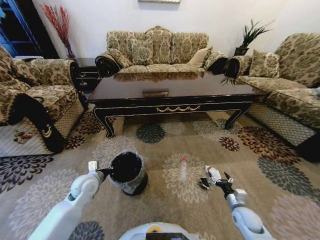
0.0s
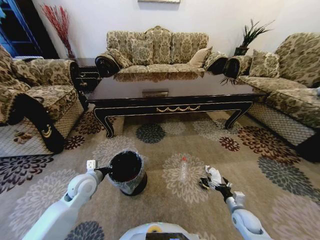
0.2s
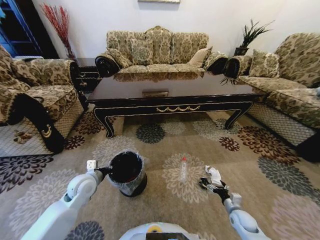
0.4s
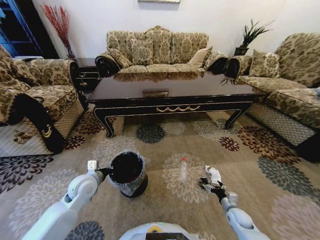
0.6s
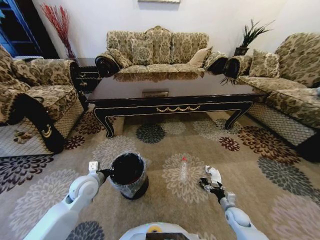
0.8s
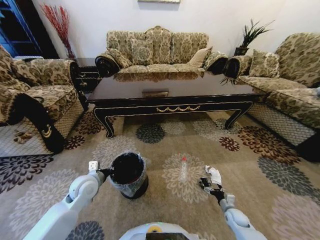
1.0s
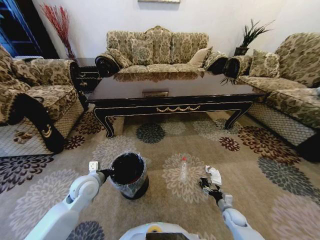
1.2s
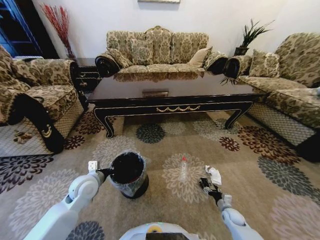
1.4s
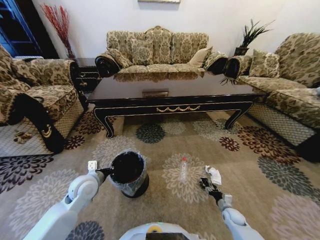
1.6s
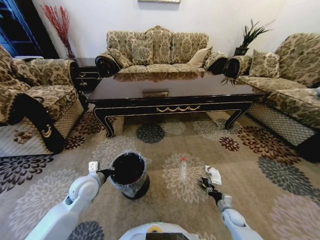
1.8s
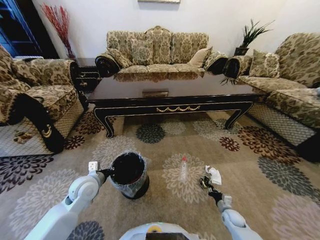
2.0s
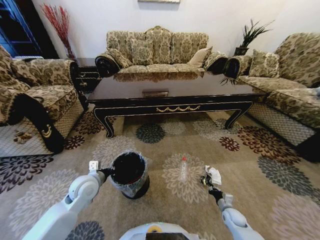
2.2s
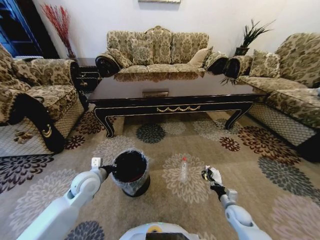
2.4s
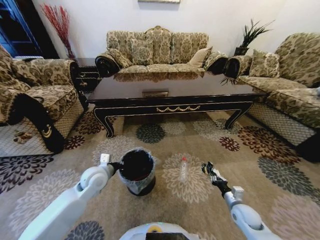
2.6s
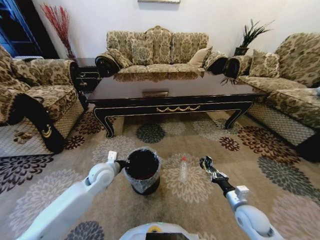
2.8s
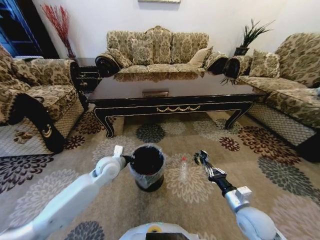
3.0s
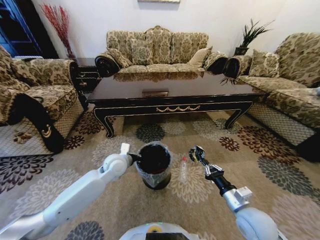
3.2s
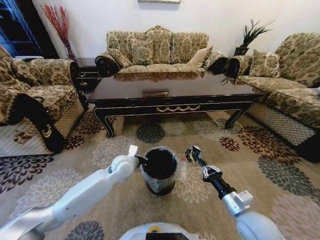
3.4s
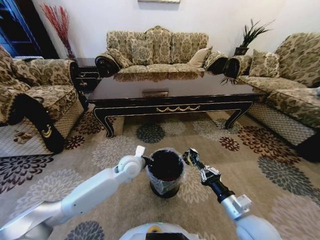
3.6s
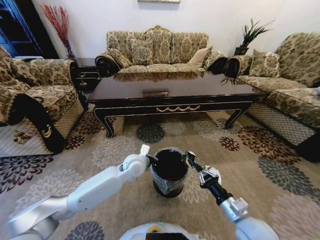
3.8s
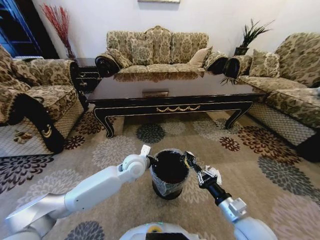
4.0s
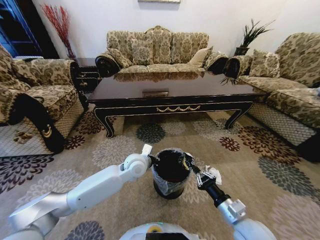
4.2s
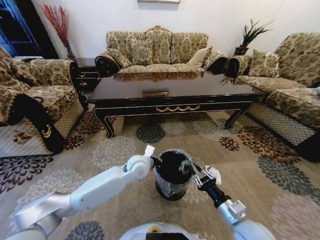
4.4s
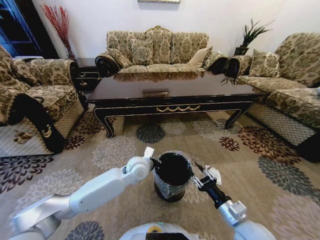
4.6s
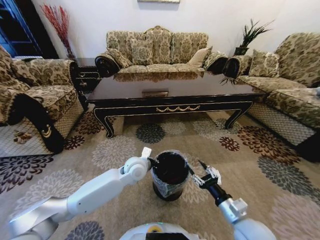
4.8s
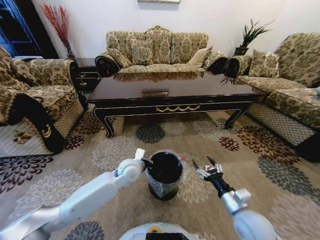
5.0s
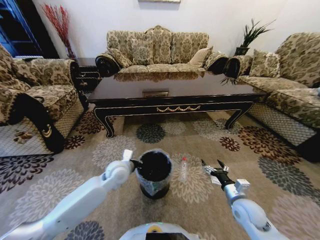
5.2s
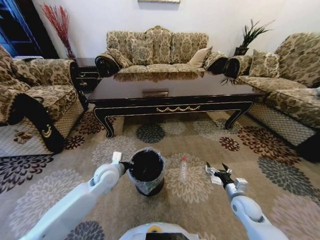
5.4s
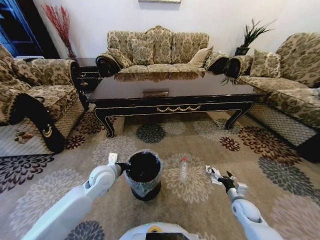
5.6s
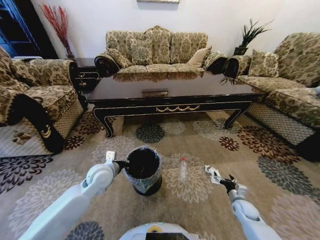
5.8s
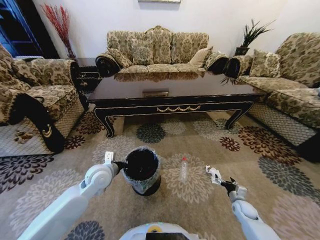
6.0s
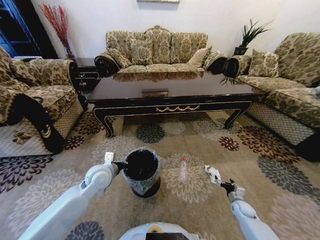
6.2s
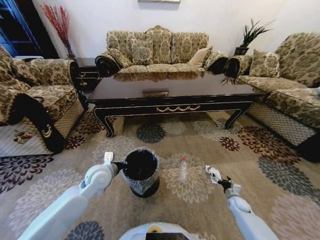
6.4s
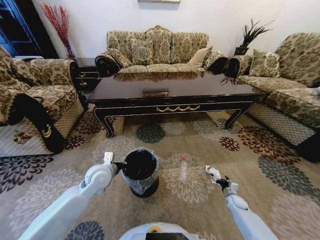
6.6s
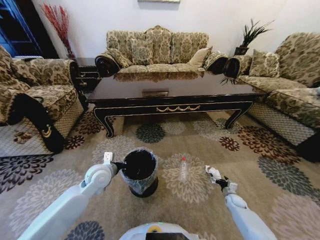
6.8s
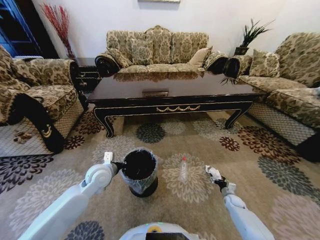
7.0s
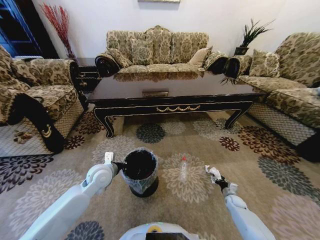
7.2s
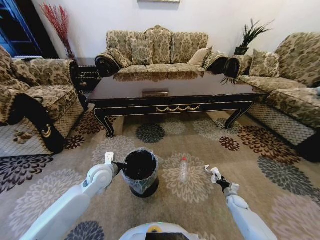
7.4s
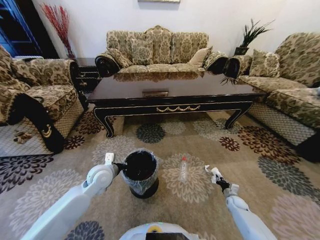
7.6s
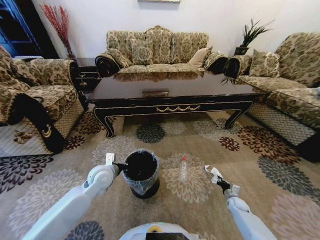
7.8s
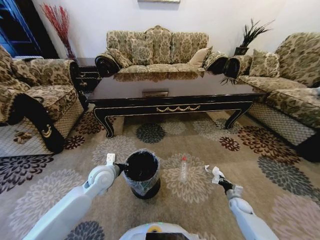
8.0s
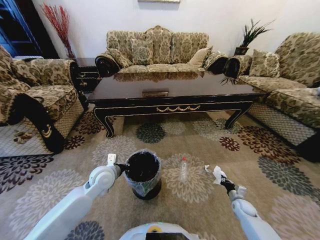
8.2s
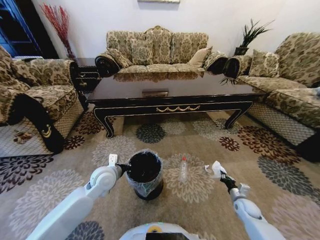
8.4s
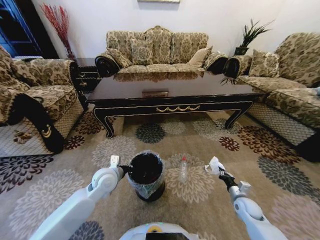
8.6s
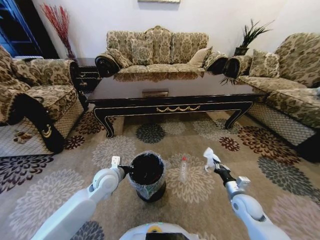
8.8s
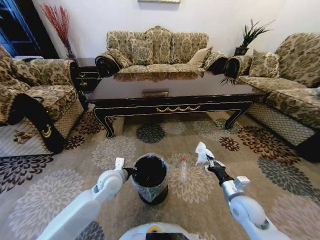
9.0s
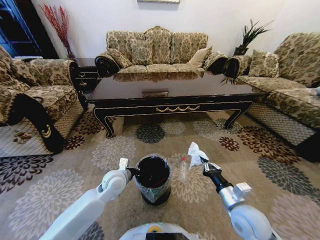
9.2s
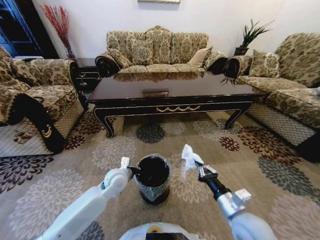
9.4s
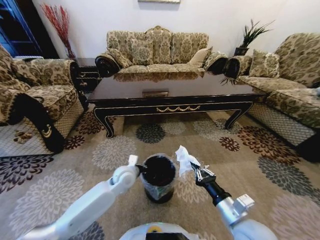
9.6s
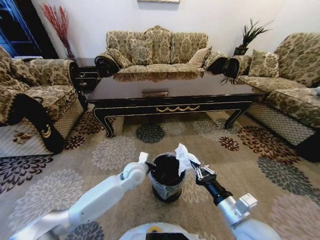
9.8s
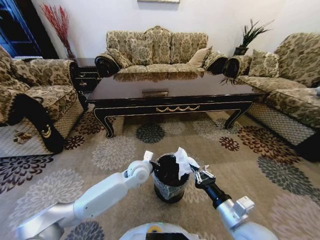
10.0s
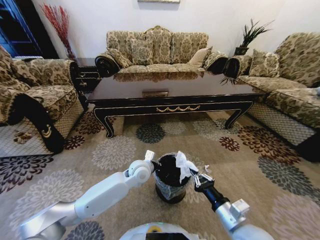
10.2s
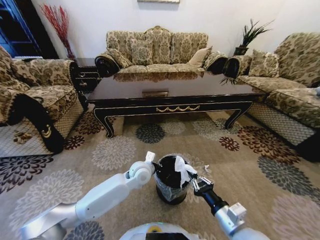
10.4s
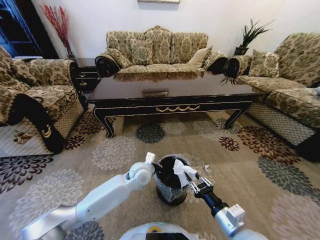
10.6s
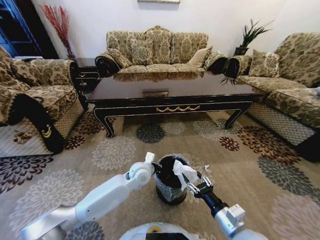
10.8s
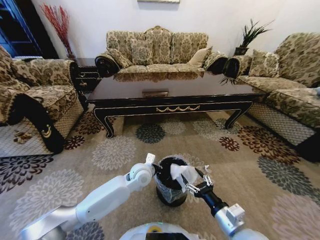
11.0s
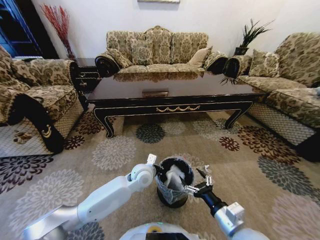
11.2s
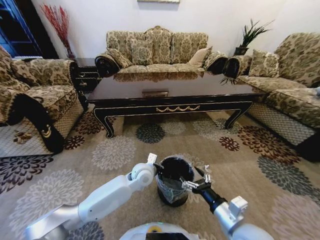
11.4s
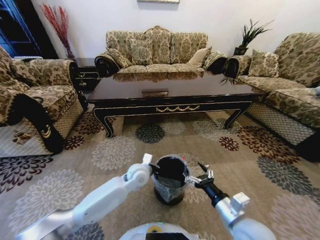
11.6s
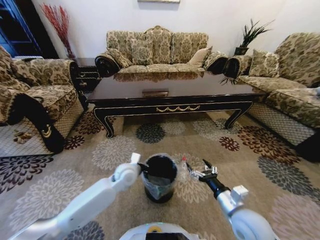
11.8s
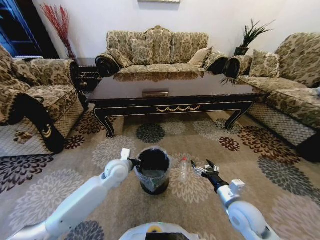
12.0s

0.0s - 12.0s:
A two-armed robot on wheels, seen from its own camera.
Task of the whole recording: Move to the front of the table and pick up the trash from the floor, then place it into the trash bin.
0.0s - 1.6s: The right gripper is displaced downward by roughly 10 cm, and closes its fingers.
1.6s - 3.0s: The right gripper moves upward, some 25 cm, and closes its fingers. The left gripper is displaced to the right and forward by about 10 cm.
3.0s - 4.4s: The left gripper goes about 15 cm to the right; the right gripper heads to the left, covering some 5 cm.
4.4s - 6.0s: The right gripper is displaced downward, to the right and forward by some 30 cm, and opens up. Meanwhile the left gripper shifts approximately 15 cm to the left.
6.0s - 7.6s: The right gripper heads downward, covering some 5 cm, and closes its fingers.
7.6s - 9.0s: The right gripper moves upward and to the left, about 30 cm; the left gripper moves roughly 5 cm.
9.0s - 10.4s: The left gripper is displaced to the right by approximately 10 cm. Meanwhile the right gripper heads backward and to the left, covering roughly 10 cm.
10.4s - 12.0s: The right gripper travels forward and to the right by some 10 cm, and opens; the left gripper travels to the left by roughly 10 cm.

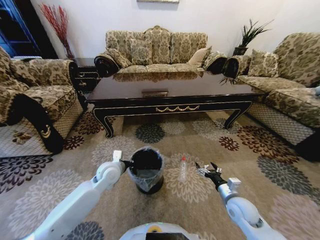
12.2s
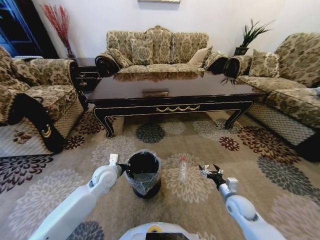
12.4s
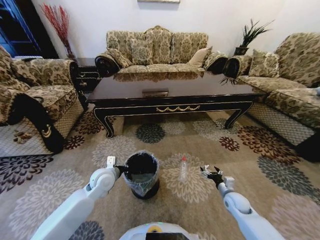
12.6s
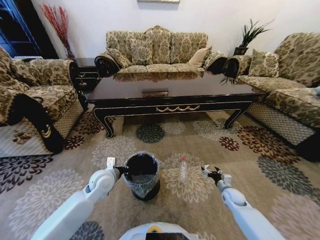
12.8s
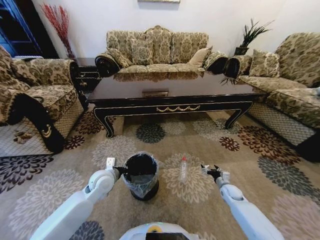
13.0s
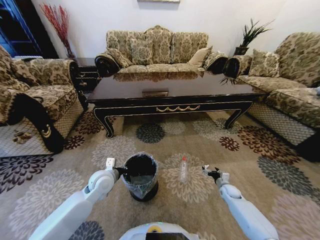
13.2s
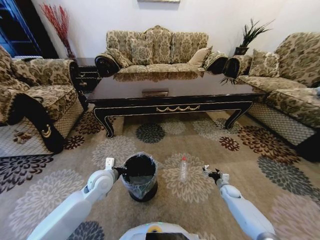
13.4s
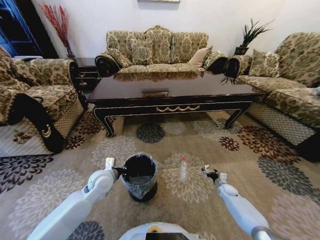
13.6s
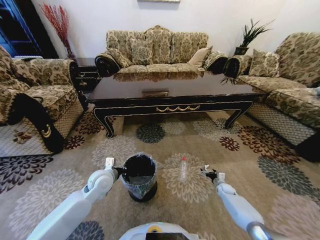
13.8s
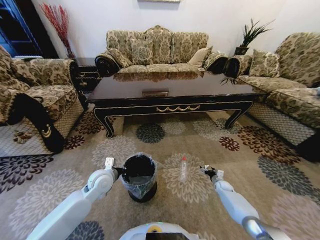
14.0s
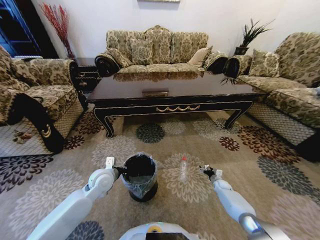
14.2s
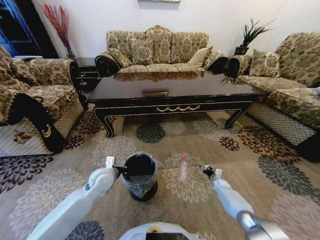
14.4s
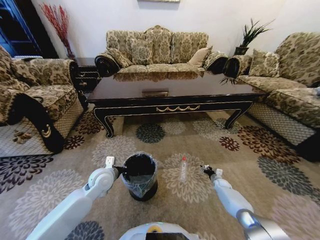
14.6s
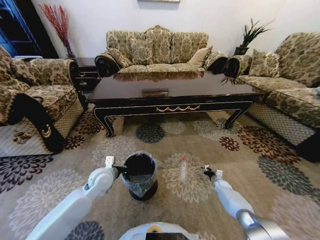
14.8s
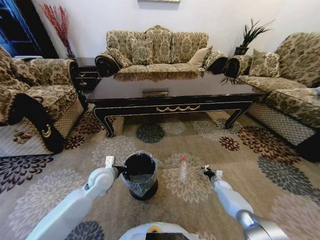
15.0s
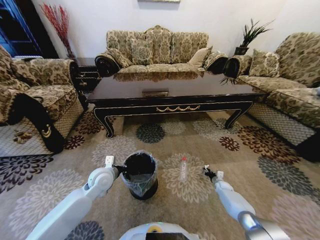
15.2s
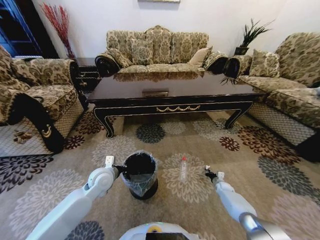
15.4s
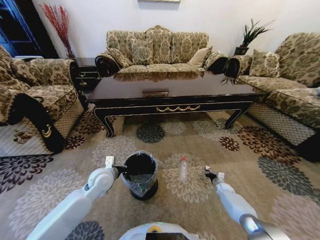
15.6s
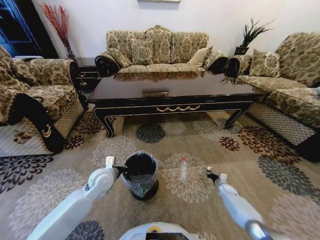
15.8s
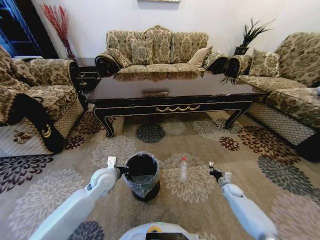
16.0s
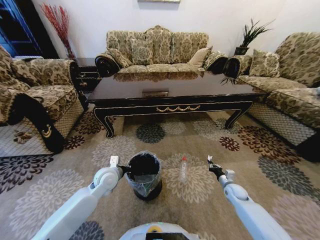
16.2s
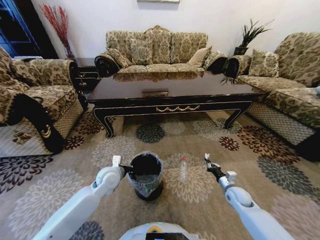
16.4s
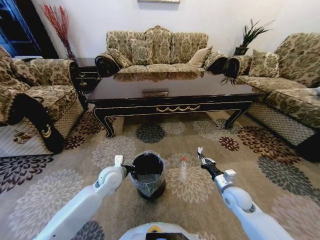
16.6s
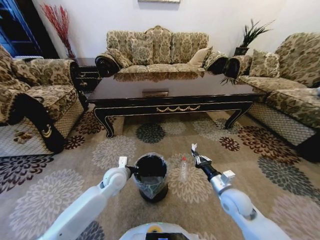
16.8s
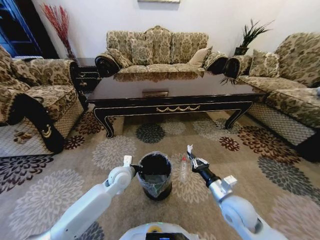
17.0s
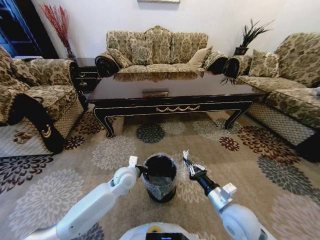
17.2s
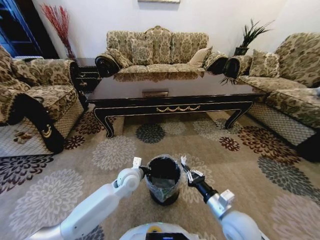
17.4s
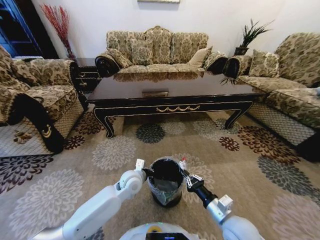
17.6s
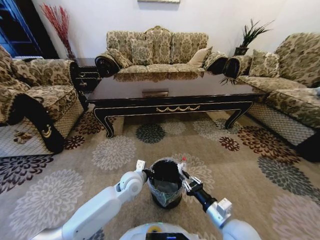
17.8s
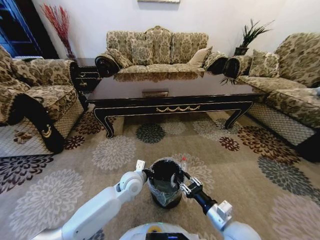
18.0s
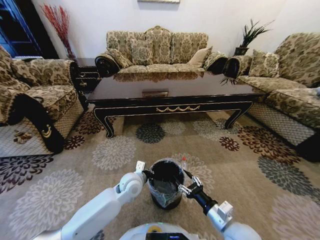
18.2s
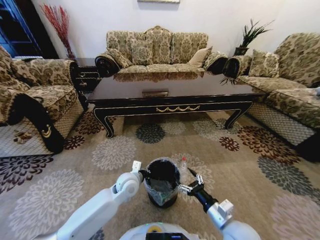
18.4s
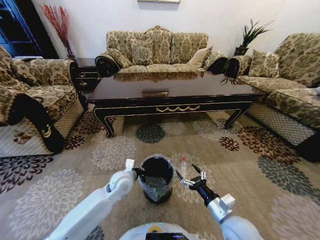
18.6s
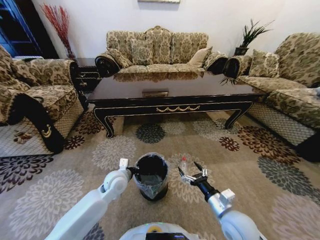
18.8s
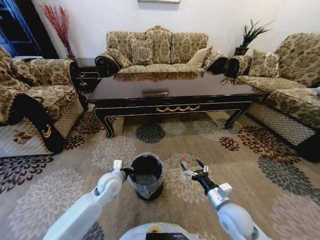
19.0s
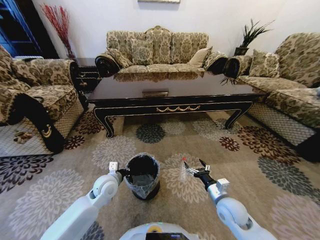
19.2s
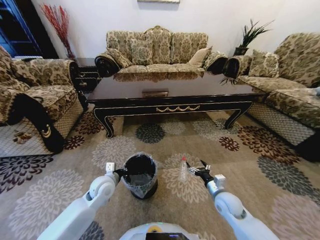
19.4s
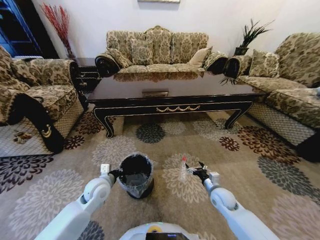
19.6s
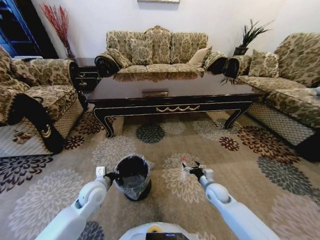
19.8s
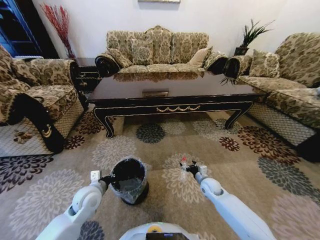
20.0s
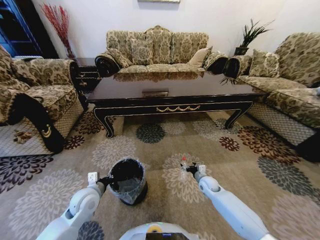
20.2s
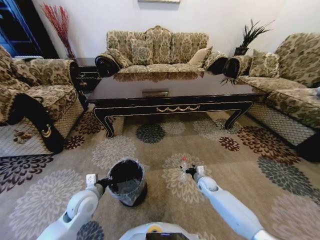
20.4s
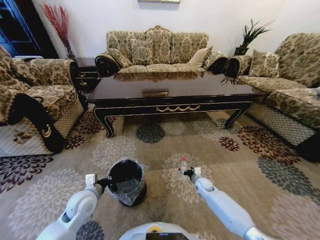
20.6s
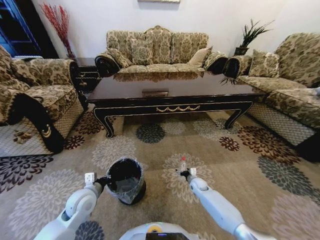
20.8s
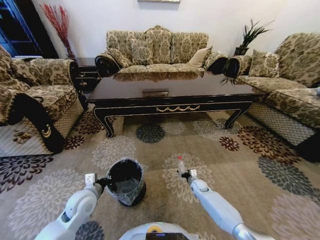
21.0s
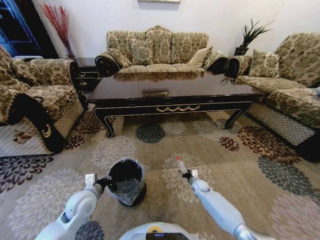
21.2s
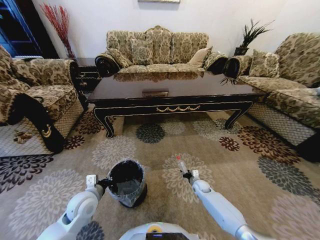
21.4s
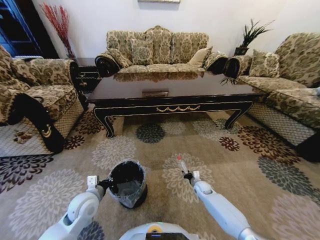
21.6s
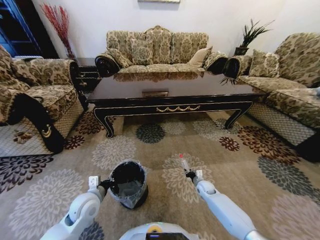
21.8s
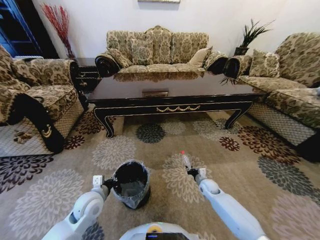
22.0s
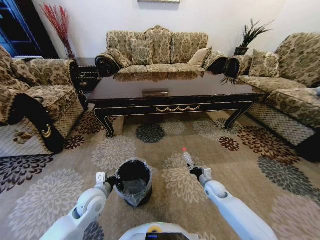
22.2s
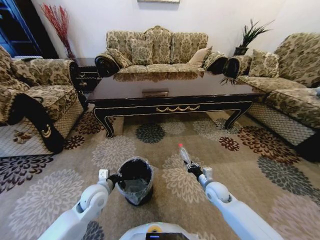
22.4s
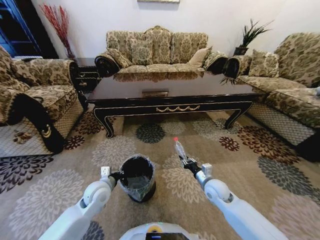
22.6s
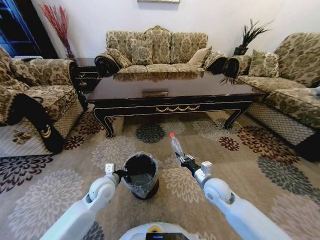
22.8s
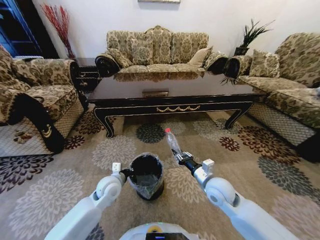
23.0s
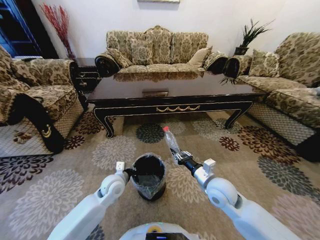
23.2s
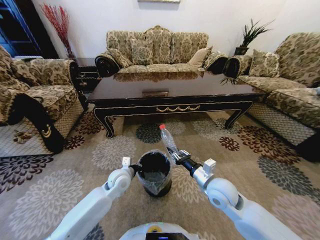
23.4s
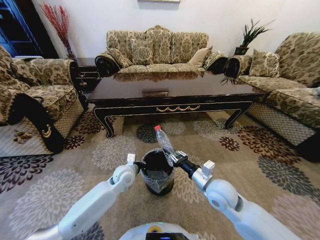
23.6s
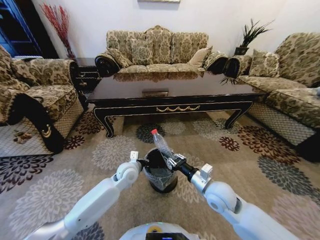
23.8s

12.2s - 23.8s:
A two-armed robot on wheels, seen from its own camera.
Task of the whole recording: Move to the front of the table and pick up the trash from the floor, then place it into the trash bin.
12.2s - 13.6s: The right gripper heads downward, forward and to the right, covering approximately 25 cm.
13.6s - 15.0s: The right gripper closes.
15.0s - 16.6s: The right gripper shifts some 25 cm upward, backward and to the left, and closes.
16.6s - 18.0s: The right gripper goes some 15 cm backward, to the left and upward, and opens its fingers. Meanwhile the left gripper heads to the right, covering approximately 10 cm.
18.0s - 19.4s: The left gripper travels to the left by some 10 cm, while the right gripper shifts some 15 cm forward, downward and to the right, and opens up.
19.4s - 21.0s: The left gripper is displaced backward and to the left by roughly 10 cm. The right gripper moves downward and forward, roughly 20 cm.
21.0s - 22.4s: The right gripper goes approximately 15 cm upward and backward, and closes up.
22.4s - 23.8s: The right gripper travels upward, to the left and backward by some 15 cm, while the left gripper moves to the right and forward, roughly 15 cm.
